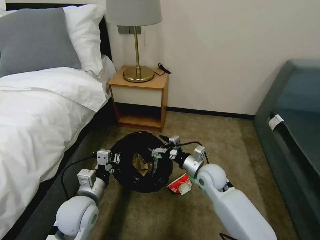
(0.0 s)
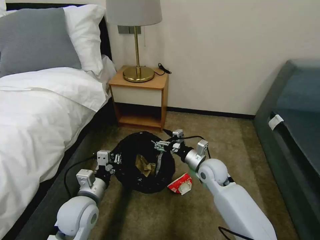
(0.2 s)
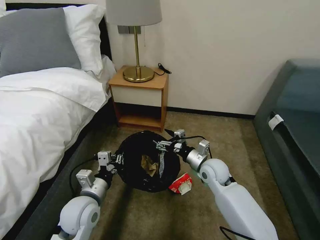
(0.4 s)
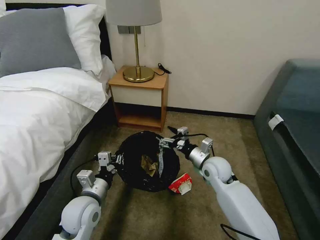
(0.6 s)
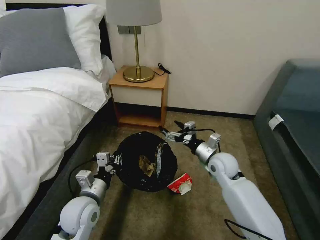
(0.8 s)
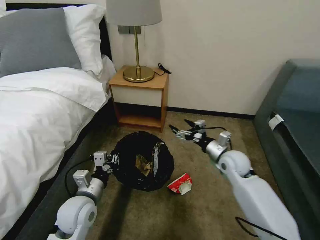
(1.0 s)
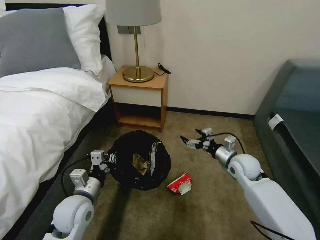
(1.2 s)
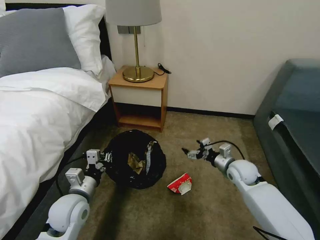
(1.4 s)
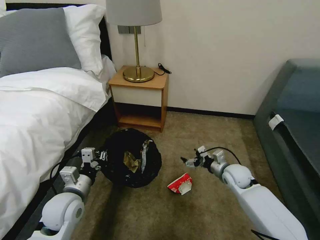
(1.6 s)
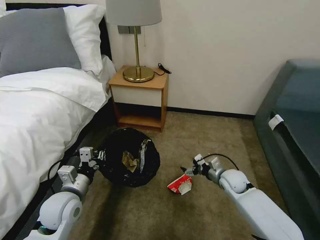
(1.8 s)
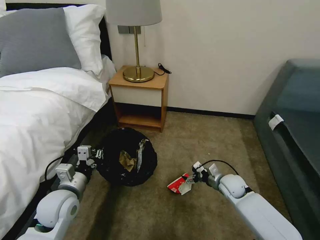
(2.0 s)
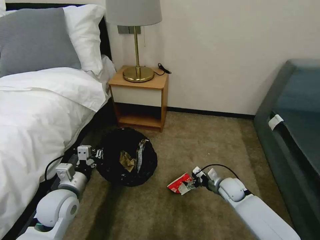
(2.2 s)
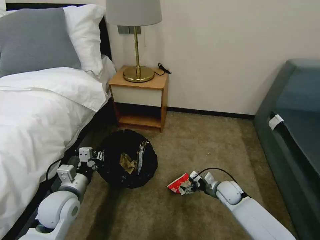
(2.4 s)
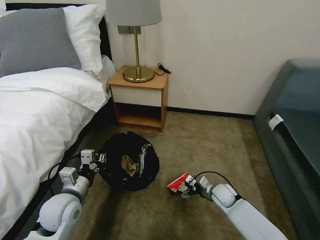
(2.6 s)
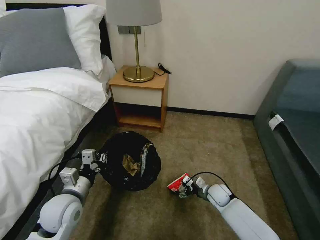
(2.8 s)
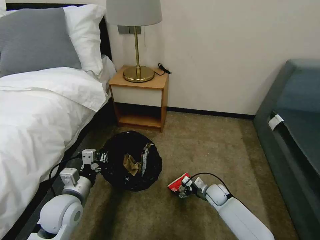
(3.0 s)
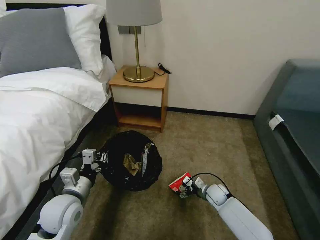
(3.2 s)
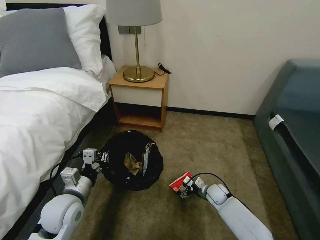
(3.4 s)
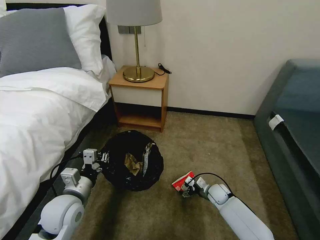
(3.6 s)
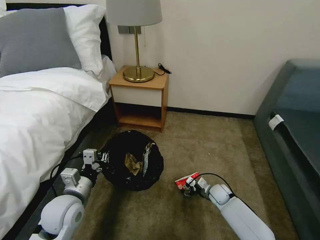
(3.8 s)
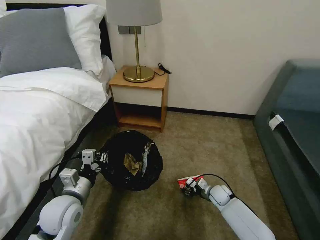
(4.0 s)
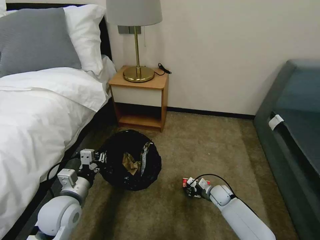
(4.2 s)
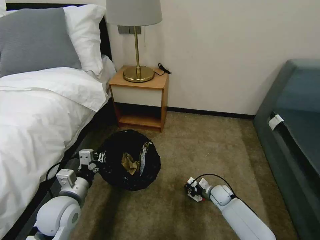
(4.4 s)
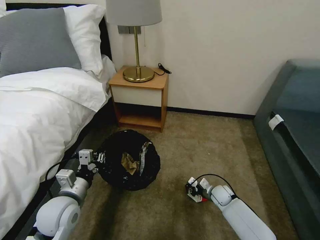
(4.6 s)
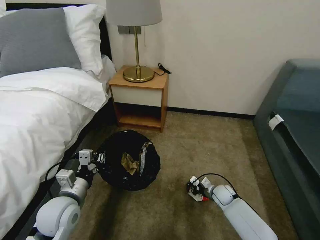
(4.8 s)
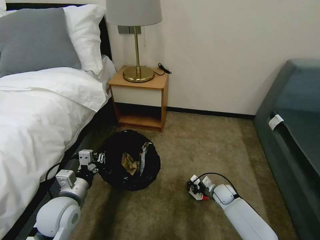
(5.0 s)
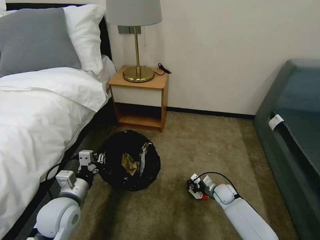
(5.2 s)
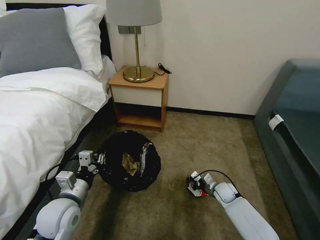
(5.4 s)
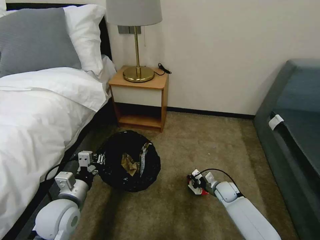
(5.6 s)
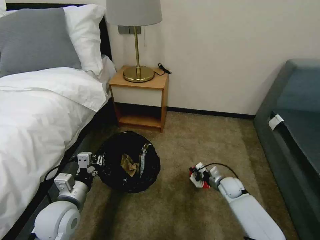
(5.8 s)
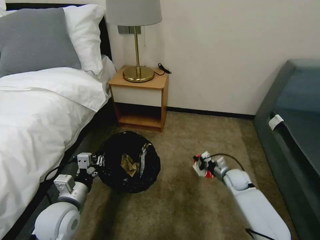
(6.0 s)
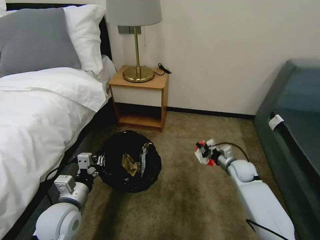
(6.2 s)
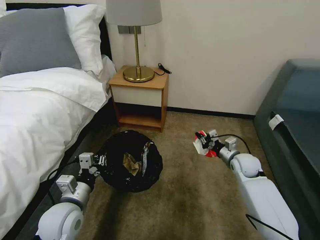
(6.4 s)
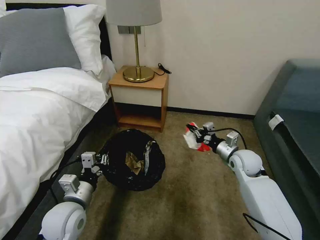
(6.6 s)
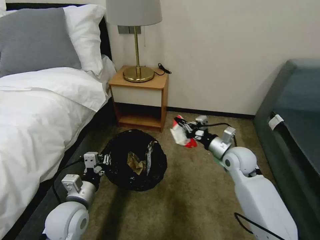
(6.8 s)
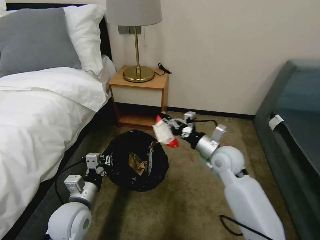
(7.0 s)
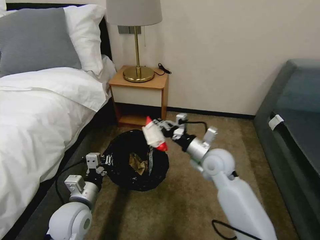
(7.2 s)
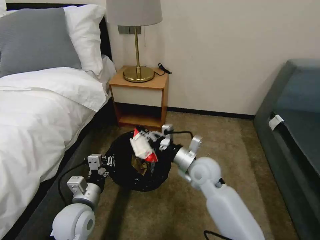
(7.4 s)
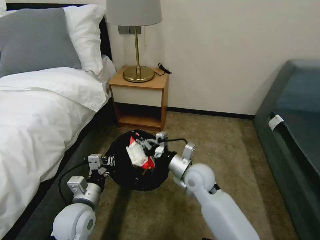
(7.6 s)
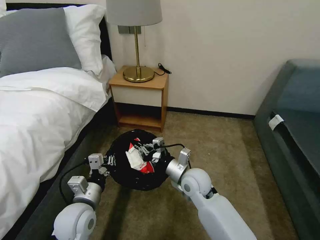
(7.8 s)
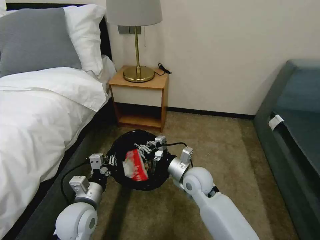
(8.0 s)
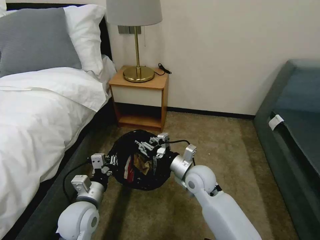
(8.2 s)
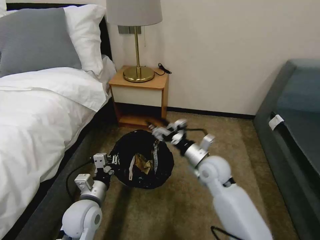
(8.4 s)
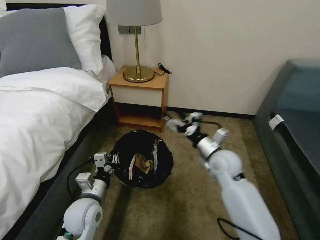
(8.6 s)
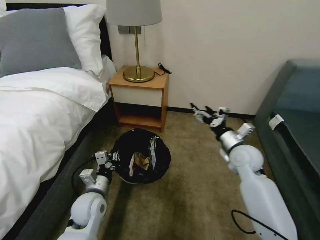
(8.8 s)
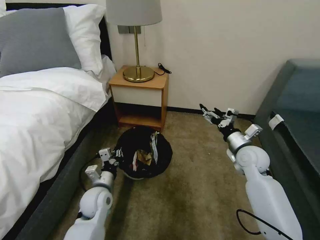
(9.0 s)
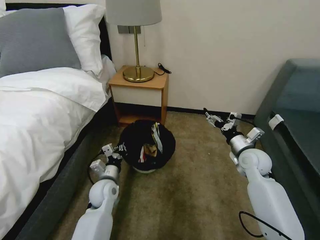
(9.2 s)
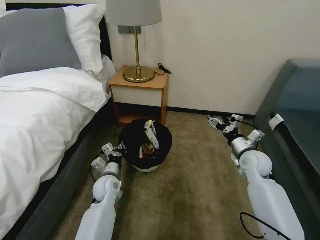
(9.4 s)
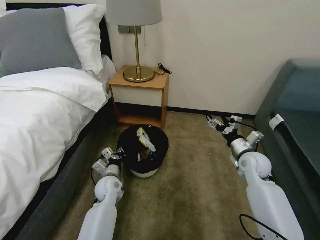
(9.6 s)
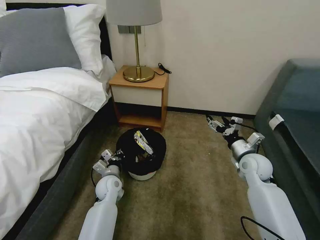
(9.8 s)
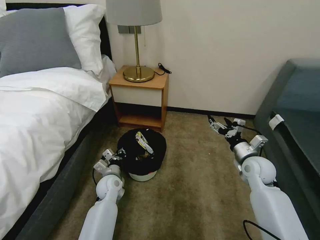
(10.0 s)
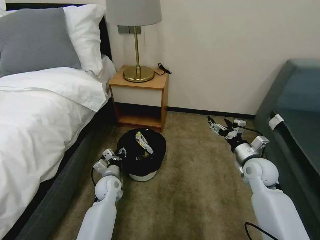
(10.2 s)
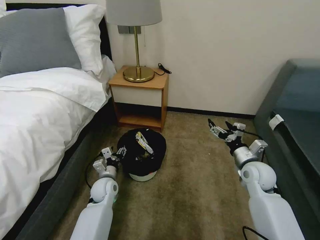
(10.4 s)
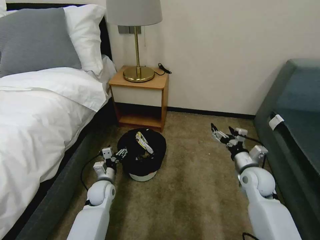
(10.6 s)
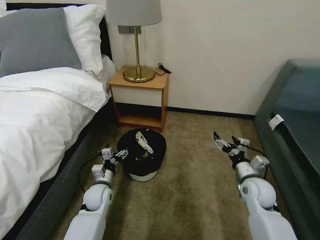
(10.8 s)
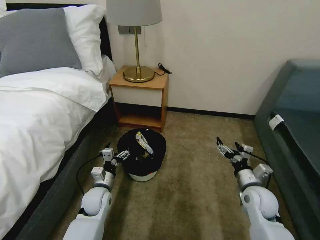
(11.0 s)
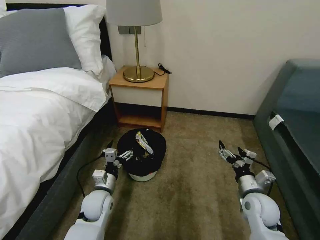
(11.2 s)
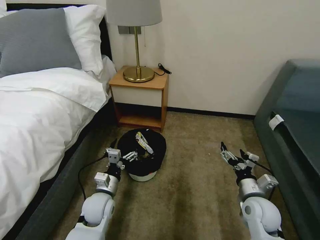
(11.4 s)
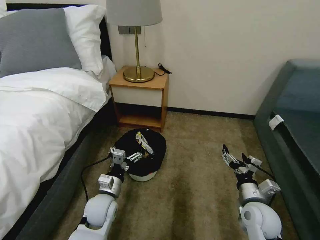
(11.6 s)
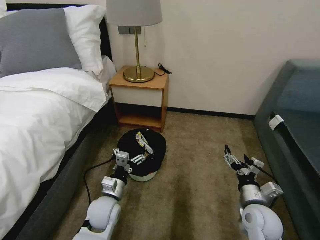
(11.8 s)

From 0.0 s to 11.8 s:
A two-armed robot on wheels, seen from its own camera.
Task of the whole recording: Pick up the trash bin, then pick up the garbage on the floor and place it into the trash bin.
From 0.0 s to 1.4 s: The right gripper travels to the right by about 15 cm.
From 1.4 s to 3.0 s: The right gripper goes about 15 cm downward.
From 3.0 s to 4.4 s: The right gripper closes up.
From 4.4 s to 6.0 s: The right gripper heads upward, covering roughly 10 cm.
From 6.0 s to 7.4 s: The right gripper moves to the left and upward, approximately 25 cm.
From 7.4 s to 8.8 s: The right gripper is displaced to the right by roughly 15 cm, and opens. Meanwhile the left gripper changes place by roughly 5 cm.
From 8.8 s to 10.4 s: The right gripper shifts roughly 5 cm to the right. Meanwhile the left gripper goes some 10 cm forward and downward, and opens its fingers.
From 10.4 s to 11.8 s: Both grippers travel together backward, about 10 cm.
